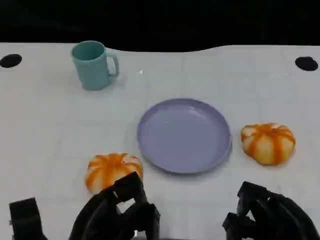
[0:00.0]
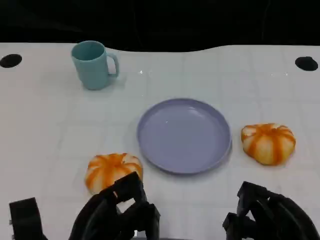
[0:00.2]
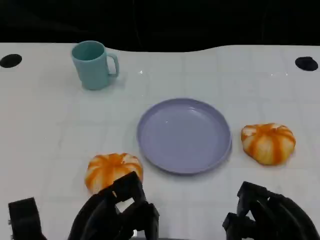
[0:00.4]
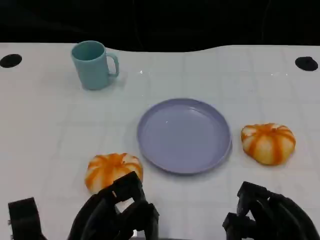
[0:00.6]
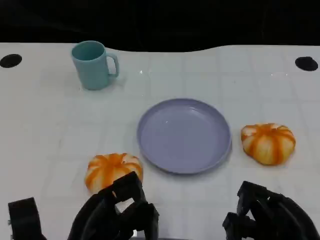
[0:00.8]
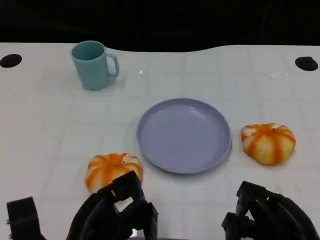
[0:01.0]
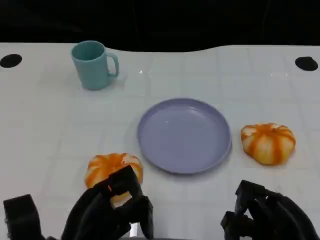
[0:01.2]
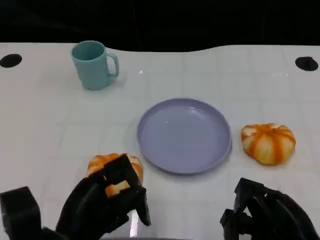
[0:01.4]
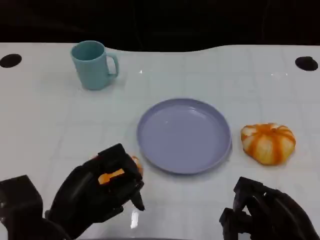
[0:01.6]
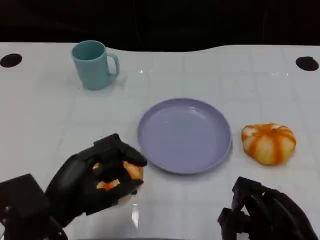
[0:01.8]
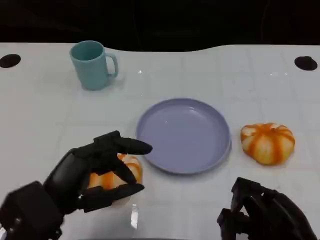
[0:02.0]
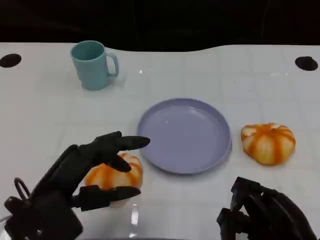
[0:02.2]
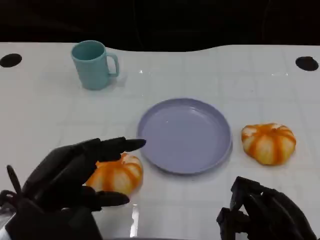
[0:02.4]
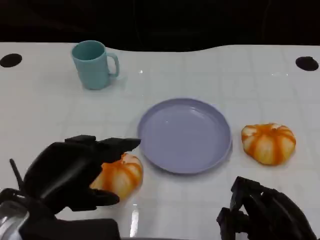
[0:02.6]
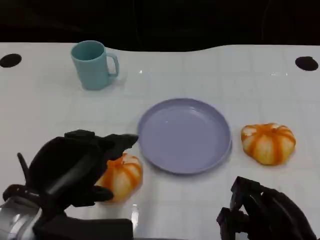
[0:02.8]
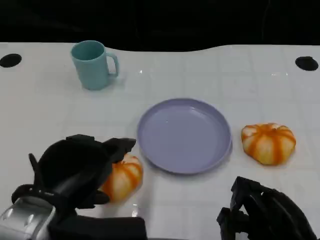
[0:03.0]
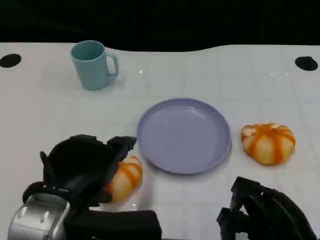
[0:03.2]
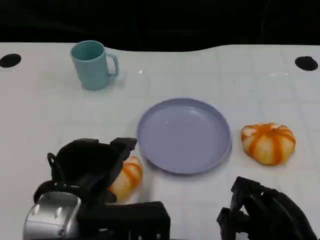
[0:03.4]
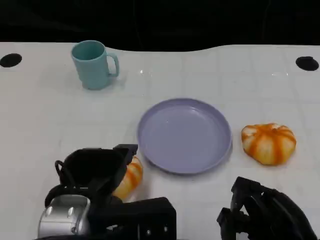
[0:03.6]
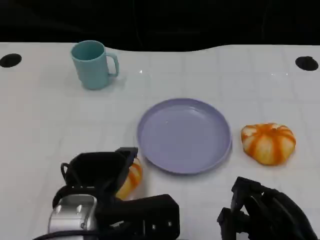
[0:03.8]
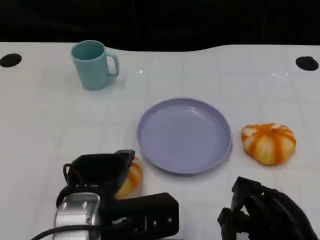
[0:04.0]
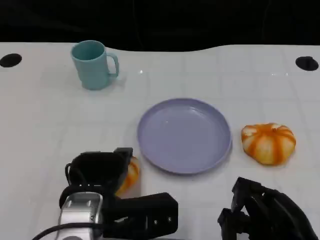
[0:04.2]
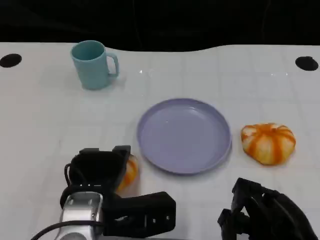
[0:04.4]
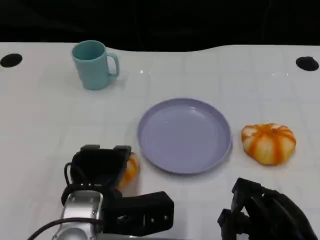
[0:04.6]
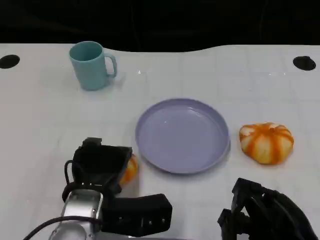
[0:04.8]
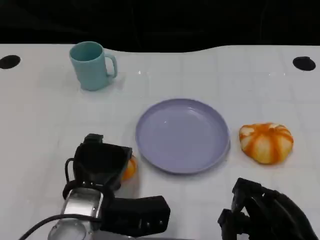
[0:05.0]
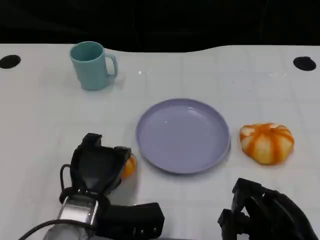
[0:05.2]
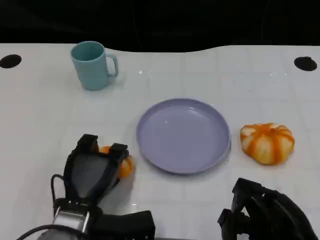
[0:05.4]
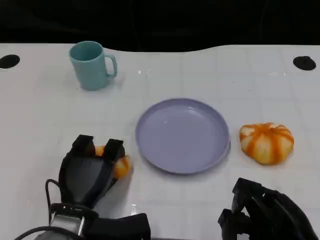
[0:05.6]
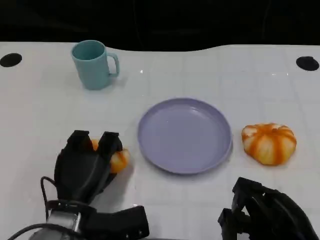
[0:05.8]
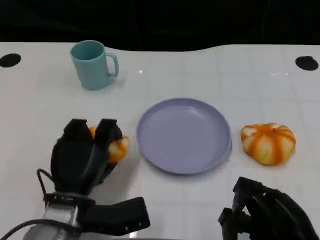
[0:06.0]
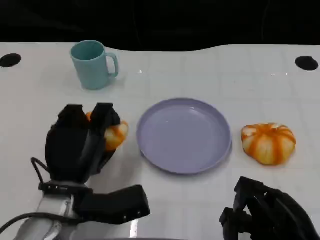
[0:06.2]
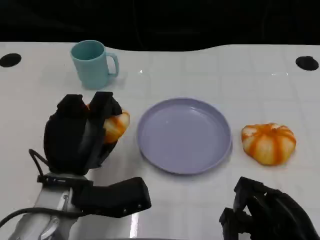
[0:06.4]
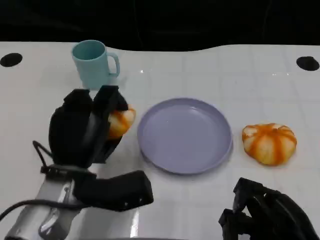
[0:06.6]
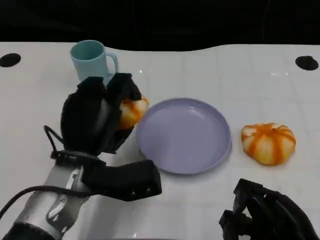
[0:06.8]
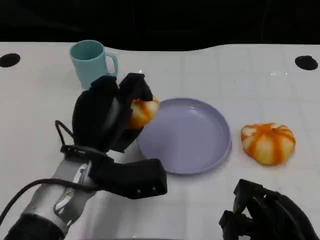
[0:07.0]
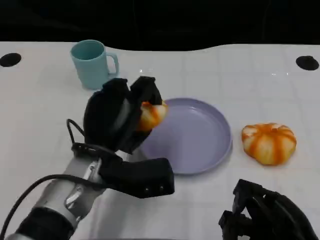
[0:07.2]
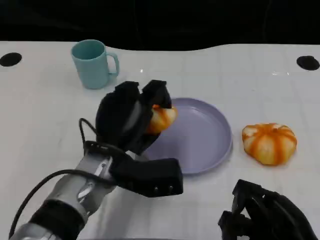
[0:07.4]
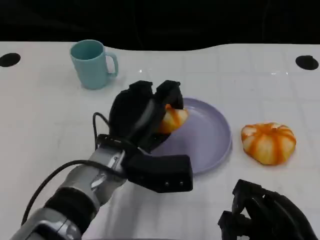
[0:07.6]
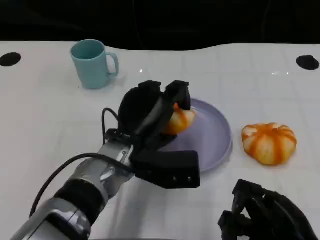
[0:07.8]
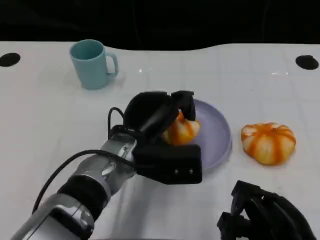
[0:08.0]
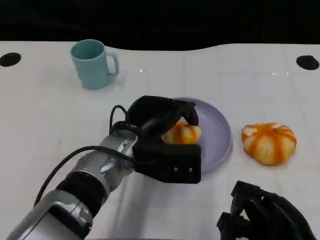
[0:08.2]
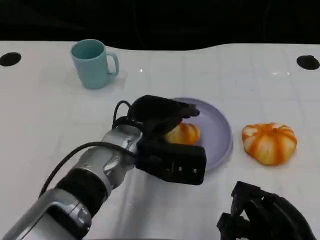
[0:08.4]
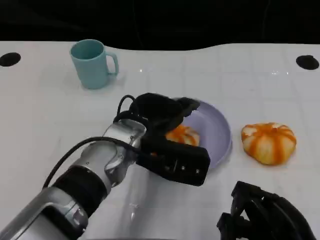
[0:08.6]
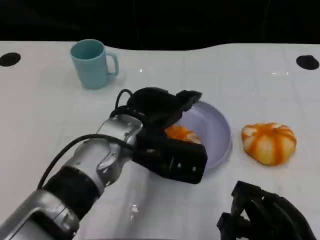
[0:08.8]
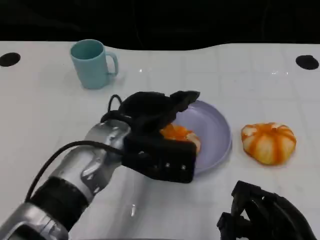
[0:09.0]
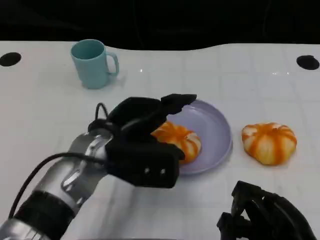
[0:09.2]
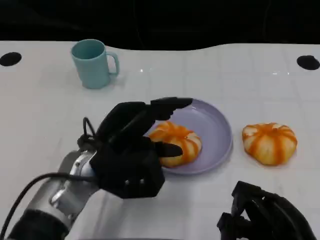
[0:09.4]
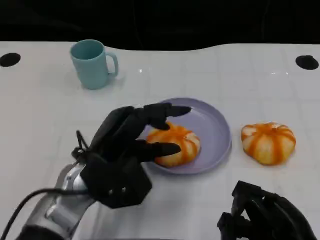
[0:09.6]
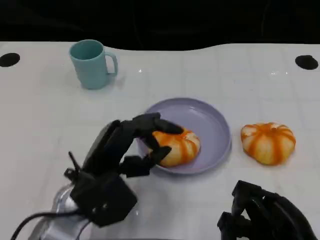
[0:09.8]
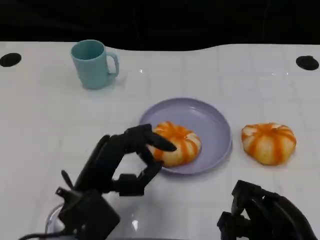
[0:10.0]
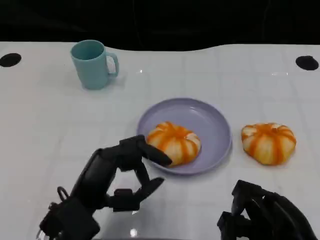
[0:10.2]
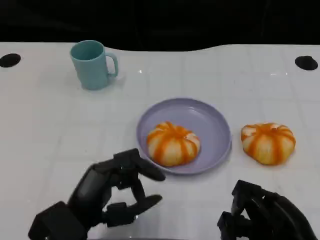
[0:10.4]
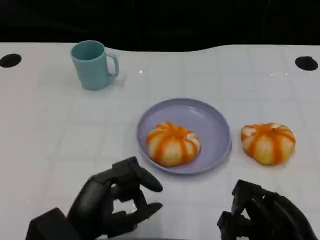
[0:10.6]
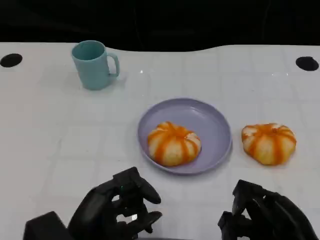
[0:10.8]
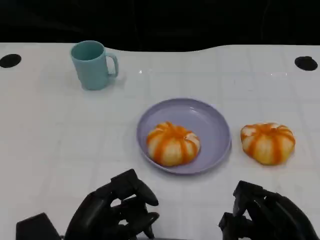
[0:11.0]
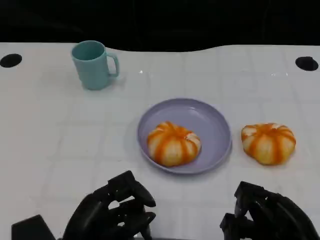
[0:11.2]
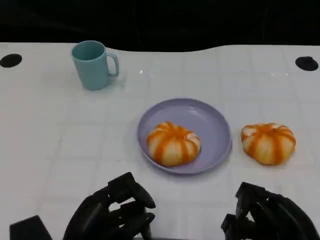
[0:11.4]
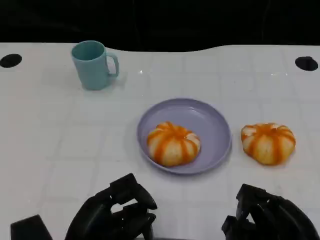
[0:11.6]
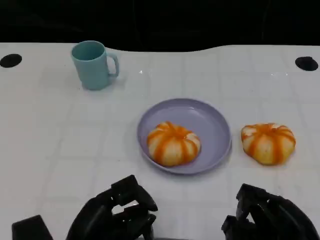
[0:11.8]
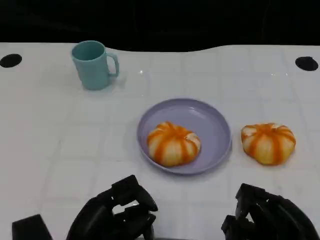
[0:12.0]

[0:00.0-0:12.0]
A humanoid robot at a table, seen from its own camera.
Task of the whole recording: Grasp the bread from the table and place it into the plate.
0:01.6 to 0:03.0: The left hand heads upward, covering approximately 5 cm.
0:03.0 to 0:04.4: The left hand heads downward, covering about 10 cm.
0:04.4 to 0:06.0: The left hand shifts by roughly 5 cm.
0:06.0 to 0:07.6: The left hand shifts roughly 10 cm to the right and forward.
0:09.0 to 0:10.4: The left hand goes roughly 15 cm backward, to the left and downward.

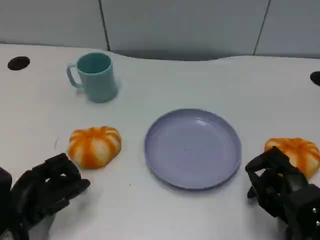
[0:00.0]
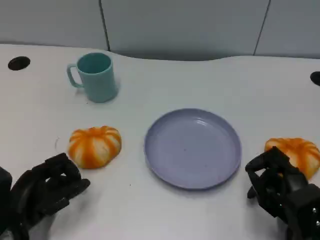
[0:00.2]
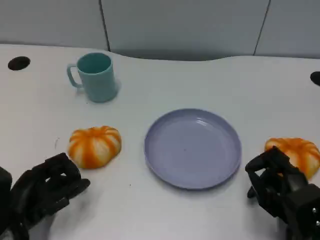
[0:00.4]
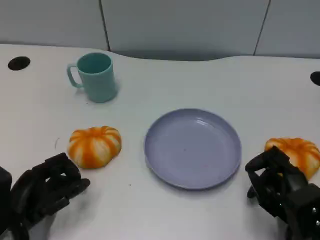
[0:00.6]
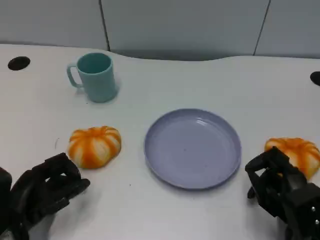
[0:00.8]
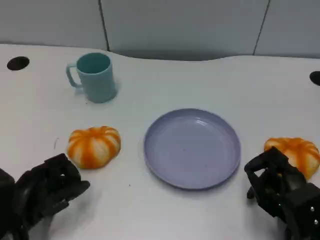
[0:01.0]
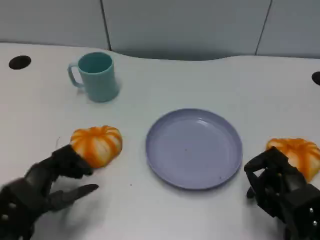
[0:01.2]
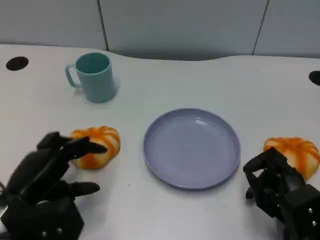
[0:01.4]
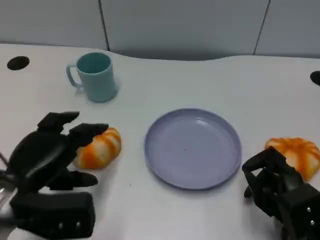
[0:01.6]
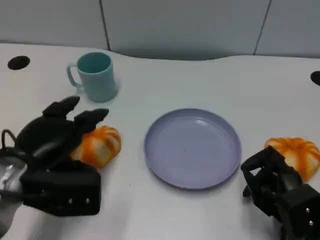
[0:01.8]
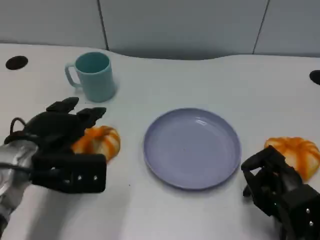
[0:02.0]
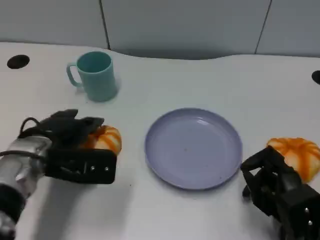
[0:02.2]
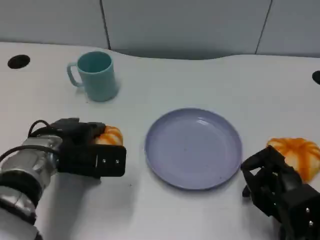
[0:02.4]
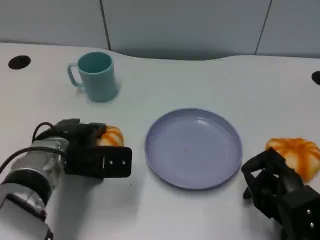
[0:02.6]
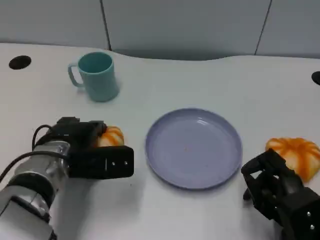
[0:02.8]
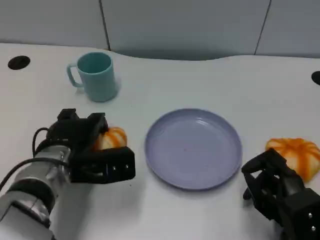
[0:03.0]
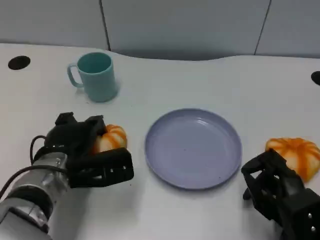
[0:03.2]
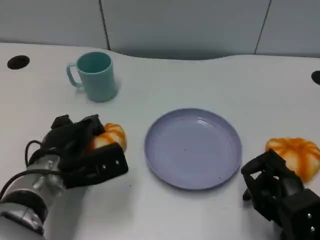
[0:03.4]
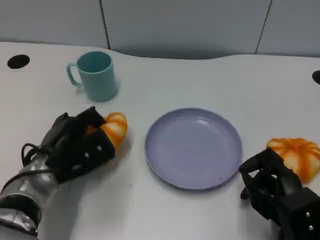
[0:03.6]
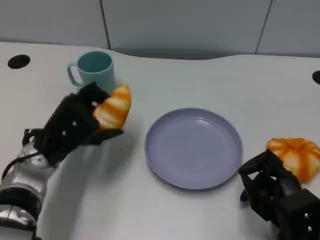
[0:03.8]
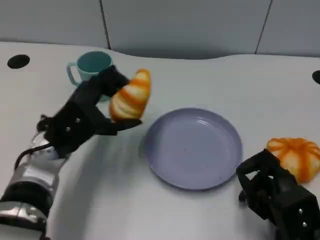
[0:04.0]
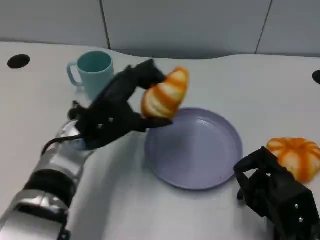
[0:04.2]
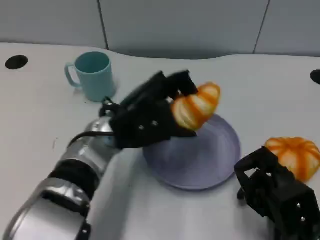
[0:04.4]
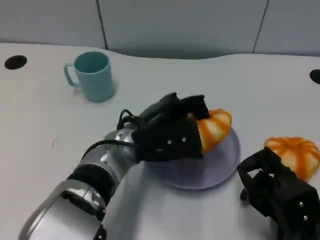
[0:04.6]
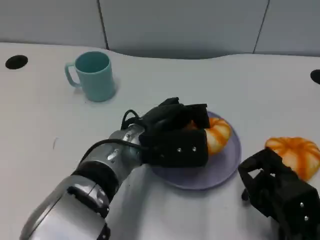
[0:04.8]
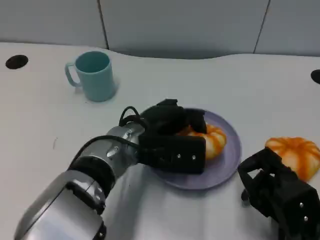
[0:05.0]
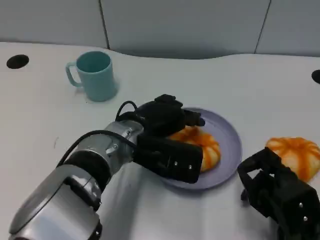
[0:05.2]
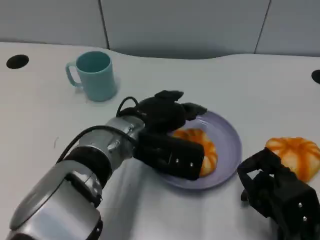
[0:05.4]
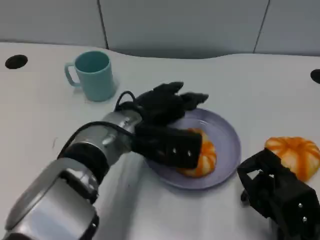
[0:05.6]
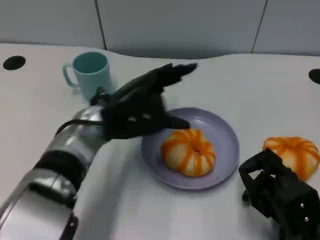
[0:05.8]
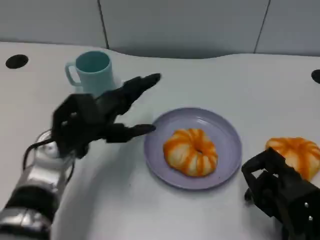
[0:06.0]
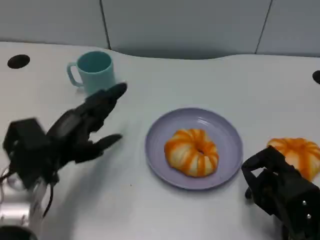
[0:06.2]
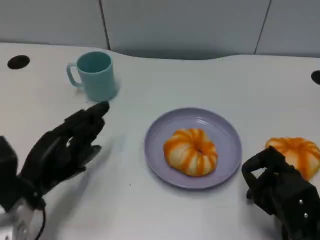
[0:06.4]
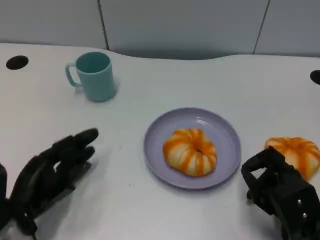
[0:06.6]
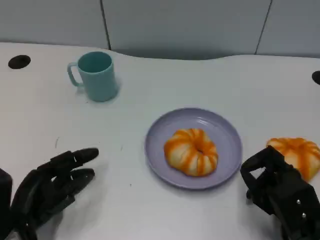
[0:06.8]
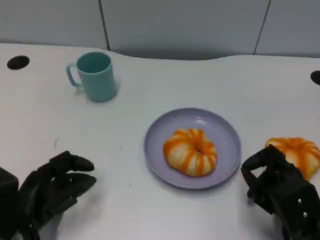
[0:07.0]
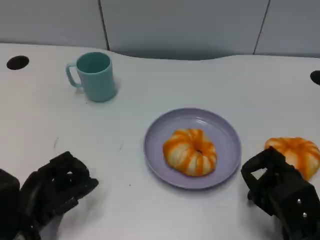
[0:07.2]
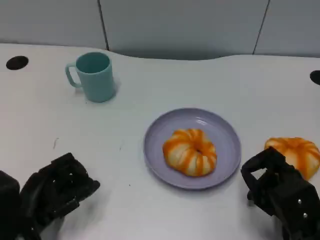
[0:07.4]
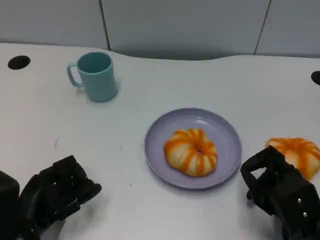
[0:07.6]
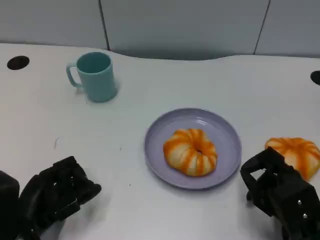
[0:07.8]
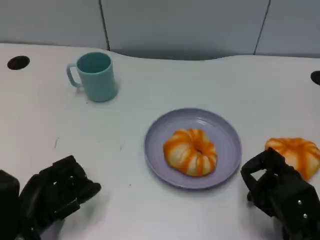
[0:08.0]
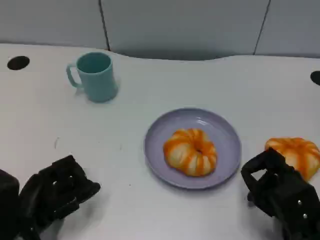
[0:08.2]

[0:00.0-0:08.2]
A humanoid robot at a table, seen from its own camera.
Task of the whole recording: Grasp the bread from the table and place it into the plate.
0:00.0 to 0:01.6: The left hand goes about 10 cm upward.
0:01.6 to 0:03.2: The left hand moves forward, downward and to the right, roughly 10 cm.
0:03.2 to 0:05.0: The left hand shifts approximately 10 cm to the right and upward.
0:05.0 to 0:06.6: The left hand moves to the left, backward and downward, approximately 20 cm.
0:06.6 to 0:08.2: The hands move only a little.

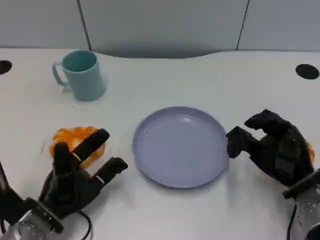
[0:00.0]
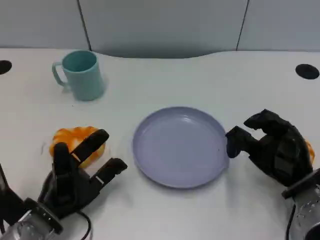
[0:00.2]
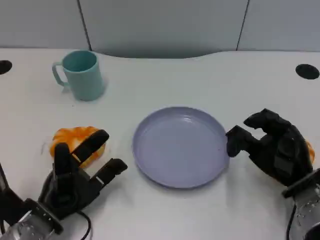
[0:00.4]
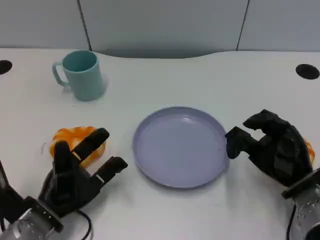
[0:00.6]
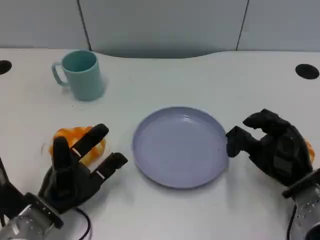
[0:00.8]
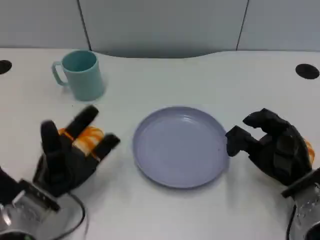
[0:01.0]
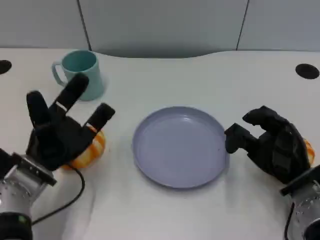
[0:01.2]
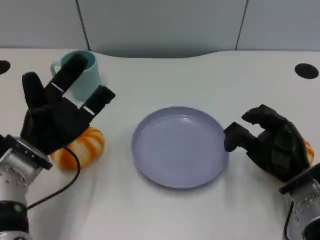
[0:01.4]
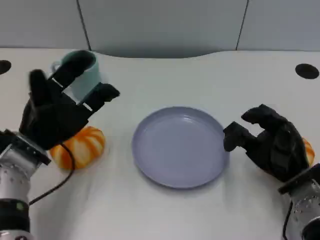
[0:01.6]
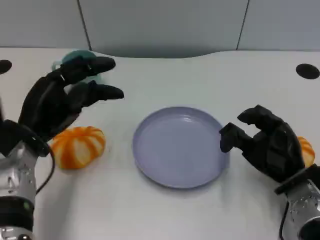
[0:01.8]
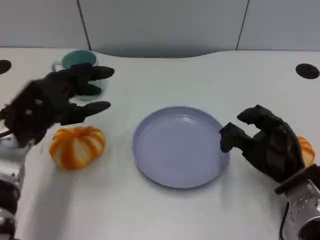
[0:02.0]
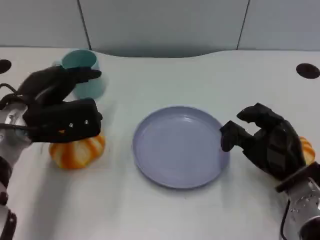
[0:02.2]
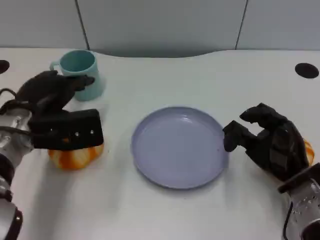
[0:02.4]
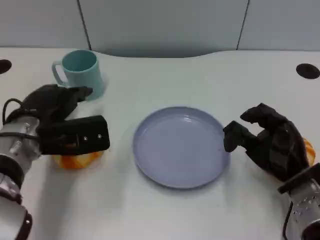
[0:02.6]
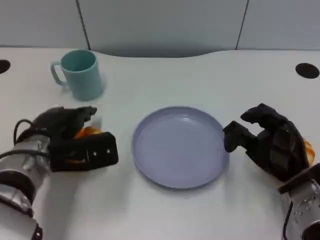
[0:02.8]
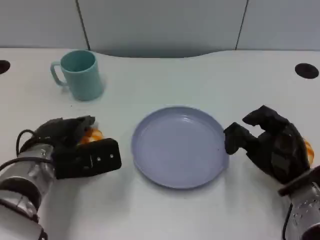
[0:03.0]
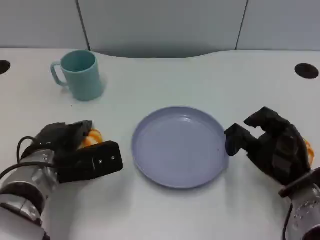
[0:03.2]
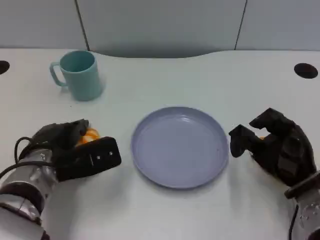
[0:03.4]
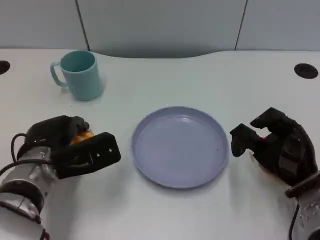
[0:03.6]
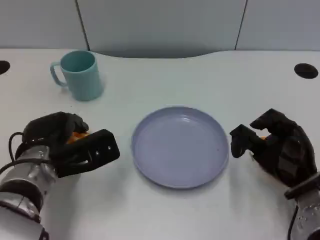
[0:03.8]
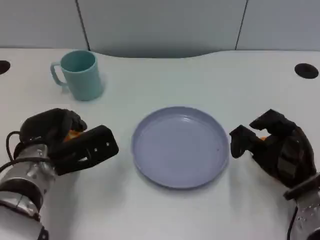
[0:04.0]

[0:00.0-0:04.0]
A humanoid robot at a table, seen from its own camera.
Task of the whole recording: Grasp the bread from the table and place it into the plate.
0:00.0 to 0:01.4: The left hand goes about 10 cm upward and forward.
0:02.6 to 0:04.0: The hands make only small movements.
